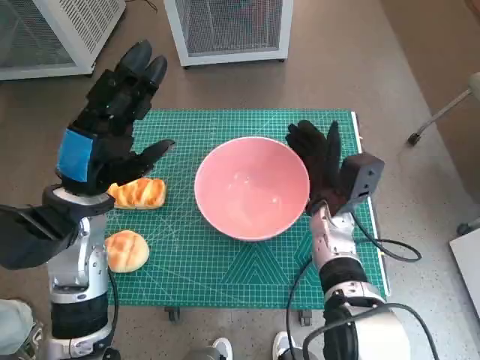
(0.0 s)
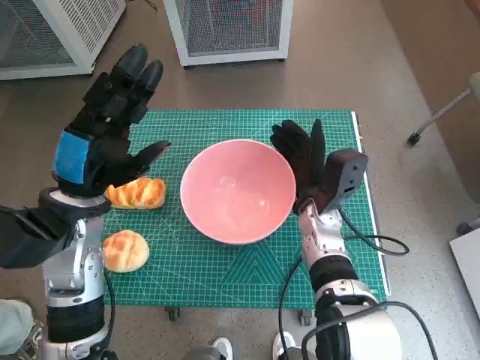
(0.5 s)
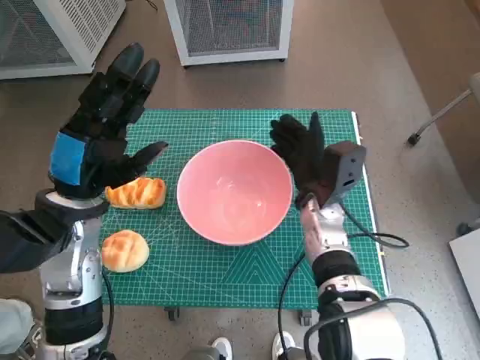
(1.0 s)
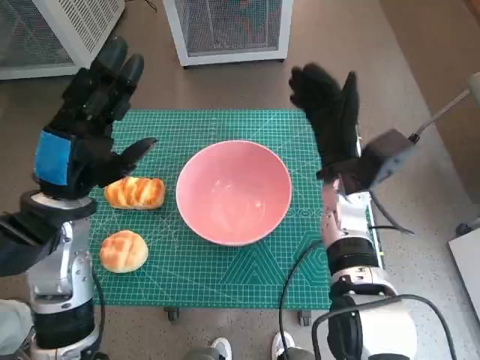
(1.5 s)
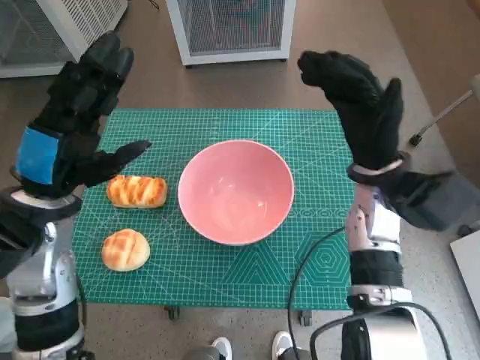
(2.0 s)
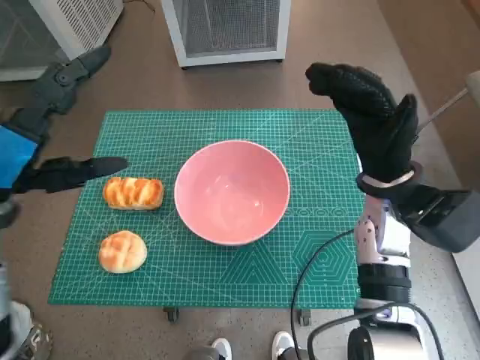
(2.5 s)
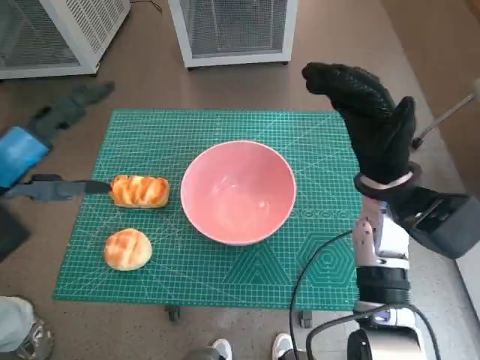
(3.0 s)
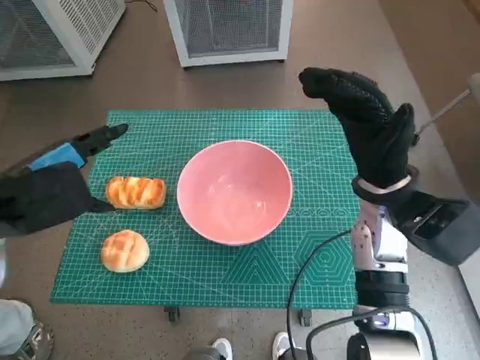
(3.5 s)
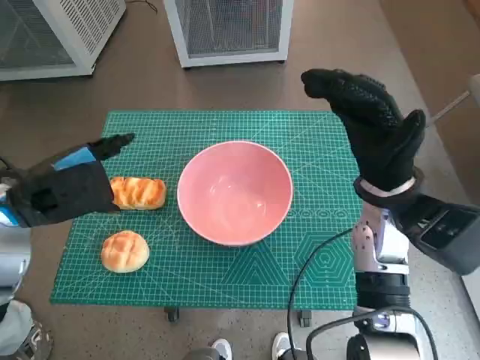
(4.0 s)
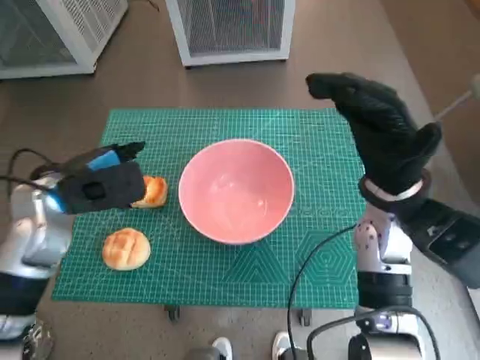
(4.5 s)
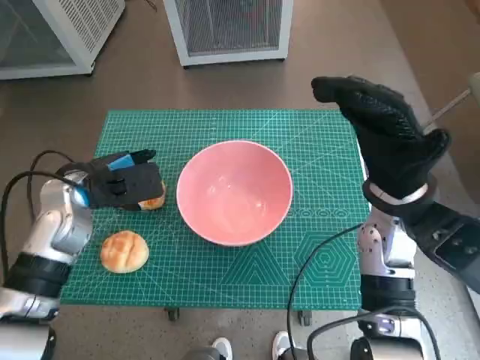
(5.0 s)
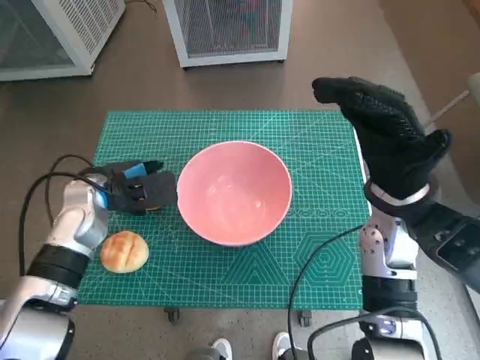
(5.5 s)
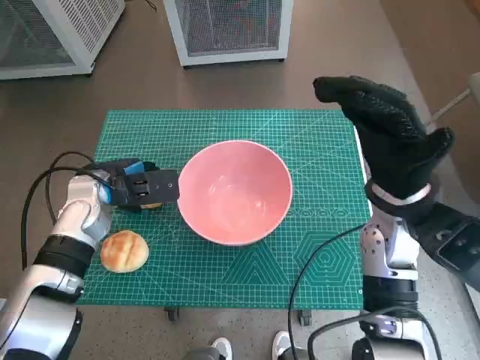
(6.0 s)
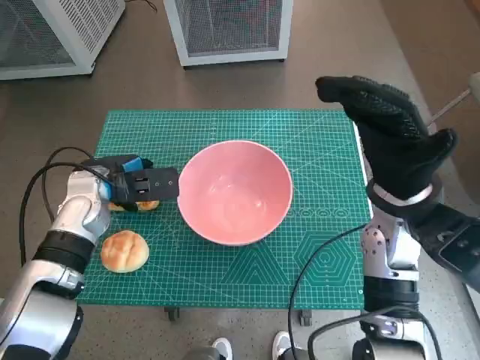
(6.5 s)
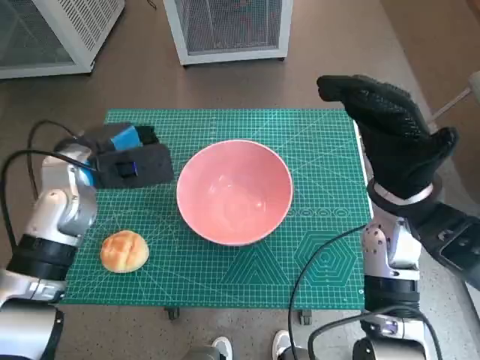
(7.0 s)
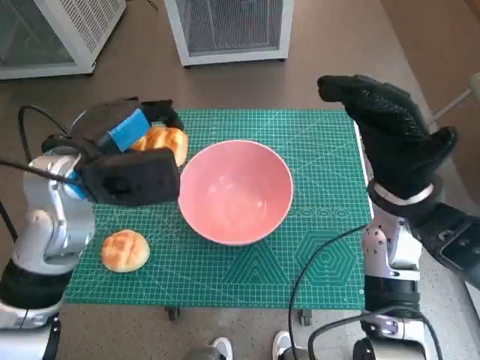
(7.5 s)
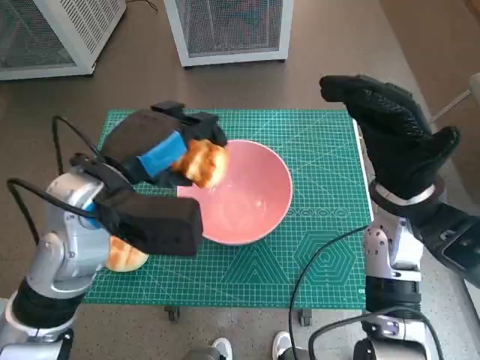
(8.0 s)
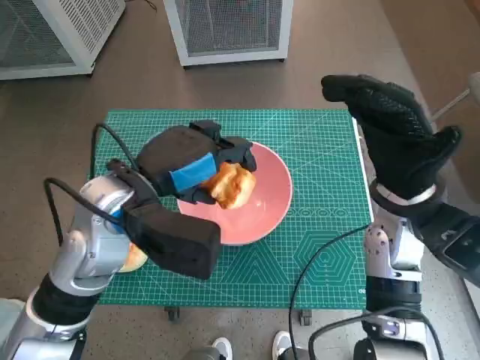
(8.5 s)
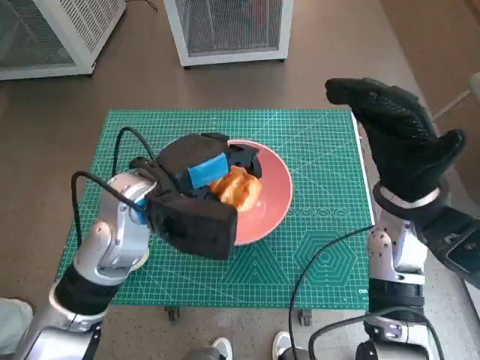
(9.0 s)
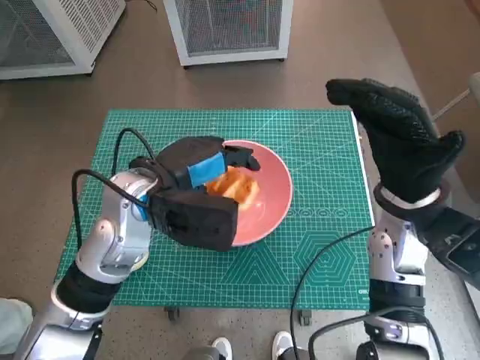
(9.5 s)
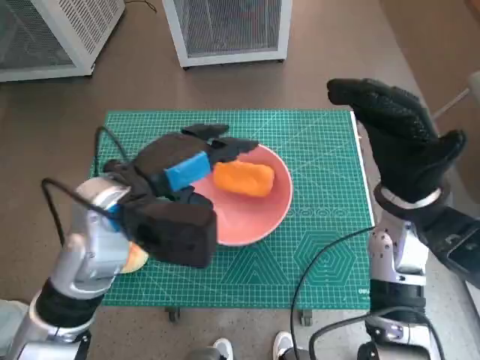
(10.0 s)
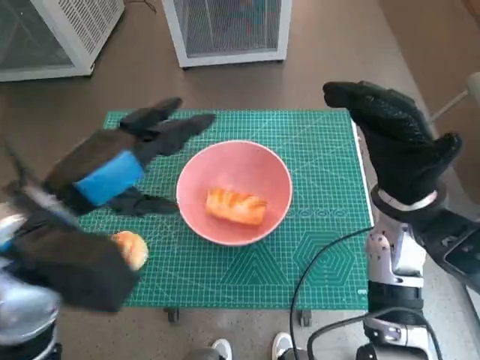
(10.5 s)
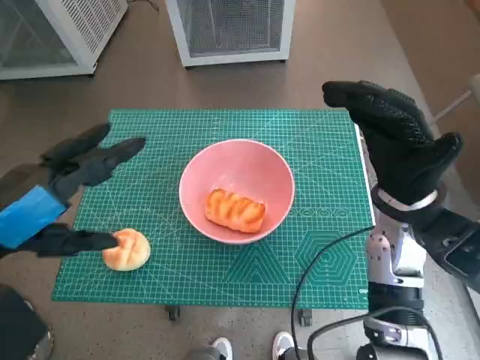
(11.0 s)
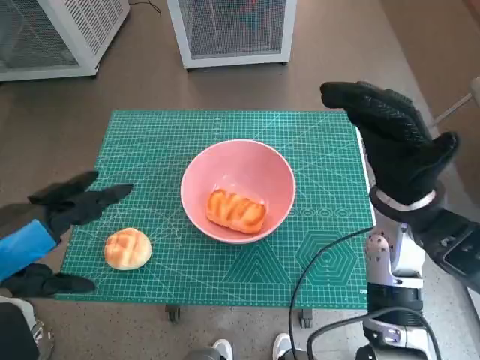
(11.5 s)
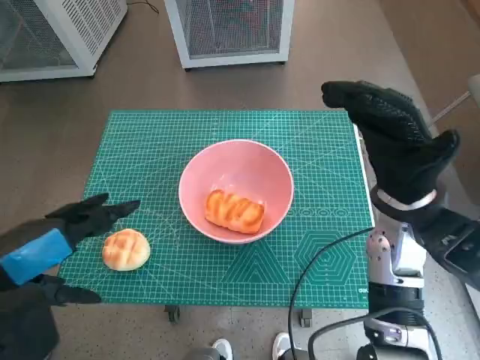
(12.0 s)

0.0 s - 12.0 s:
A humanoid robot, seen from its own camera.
Task of the whole recording: Push the bowl into the center of the table and put the bread into the bowl.
Step, 1.5 s - 6.0 s: Grasp the long bread with left hand.
Step, 6.5 s - 9.5 s: Place the long bread in pink bowl with left hand.
0.0 s - 2.0 s: The right hand is displaced upward by roughly 10 cm.
4.0 s - 6.0 s: The left hand heads downward and forward, covering about 10 cm.
6.0 s - 8.0 s: The left hand moves upward, backward and to the right, roughly 15 cm.
10.0 s - 12.0 s: The left hand travels backward and to the left by some 15 cm.

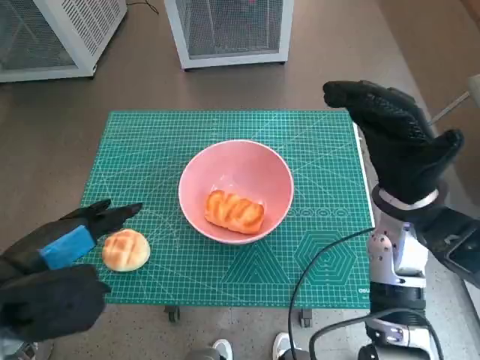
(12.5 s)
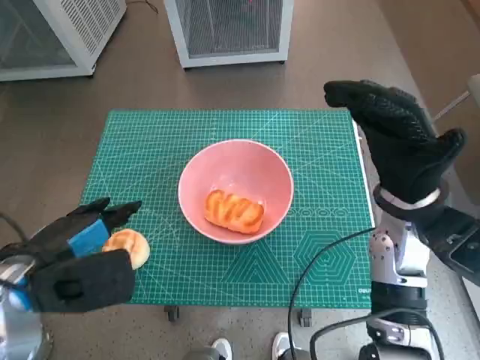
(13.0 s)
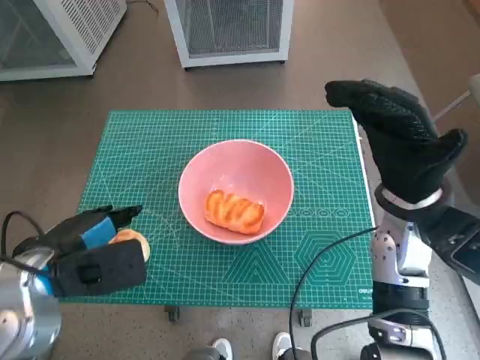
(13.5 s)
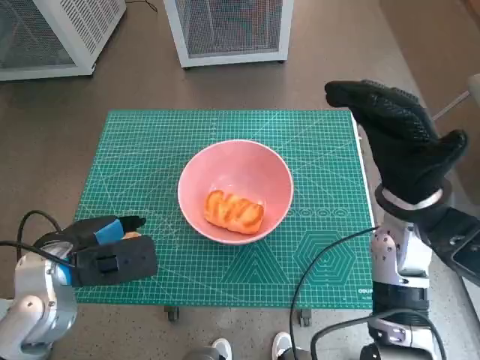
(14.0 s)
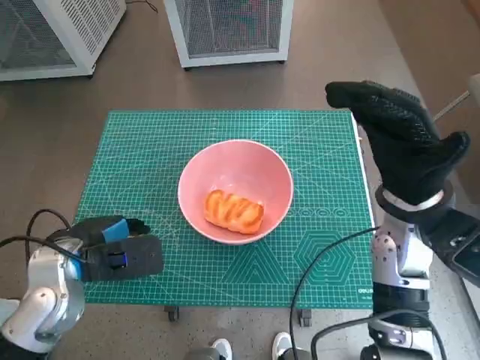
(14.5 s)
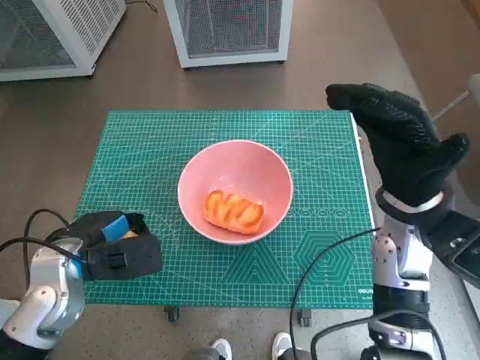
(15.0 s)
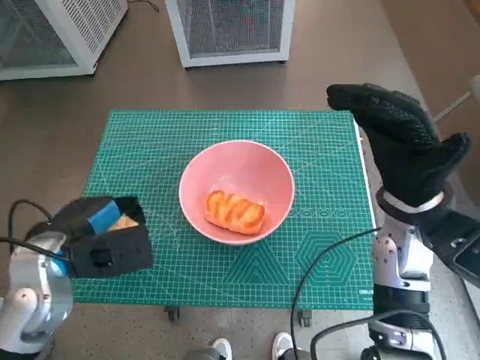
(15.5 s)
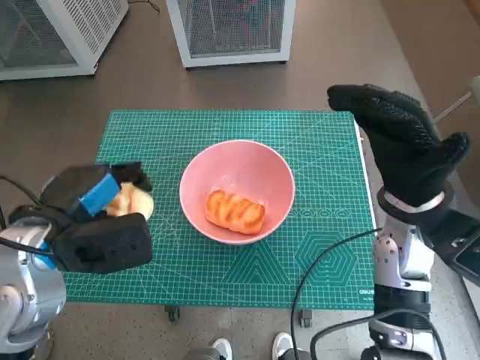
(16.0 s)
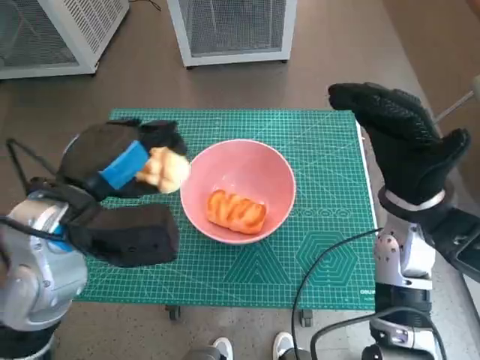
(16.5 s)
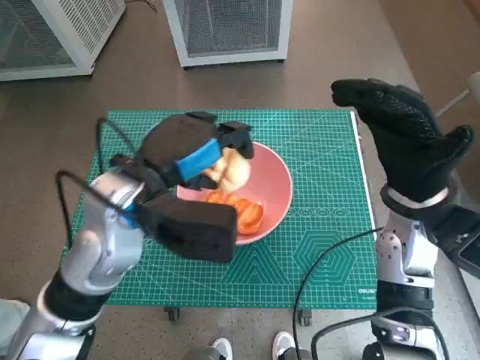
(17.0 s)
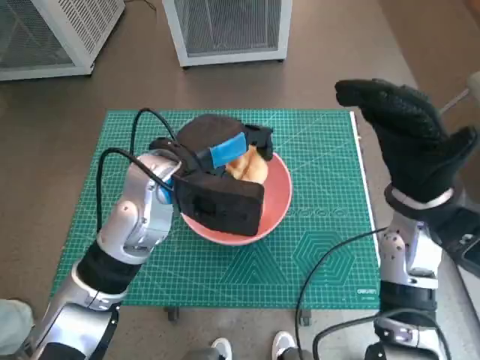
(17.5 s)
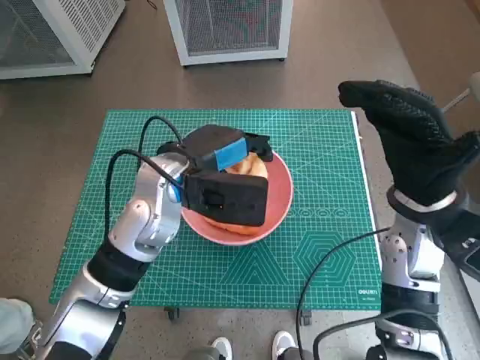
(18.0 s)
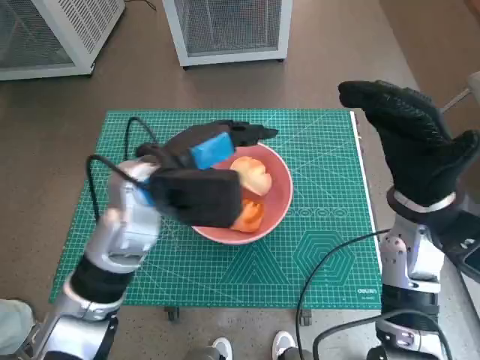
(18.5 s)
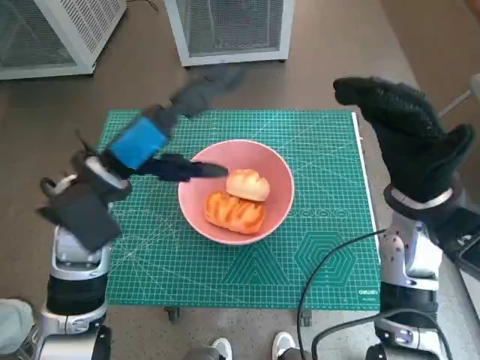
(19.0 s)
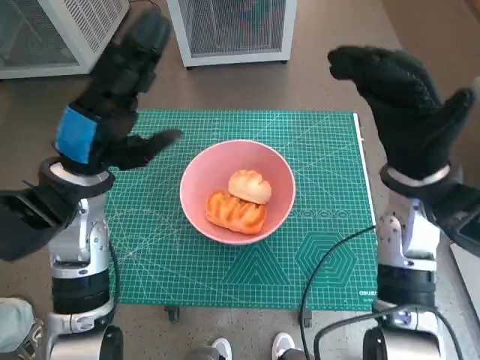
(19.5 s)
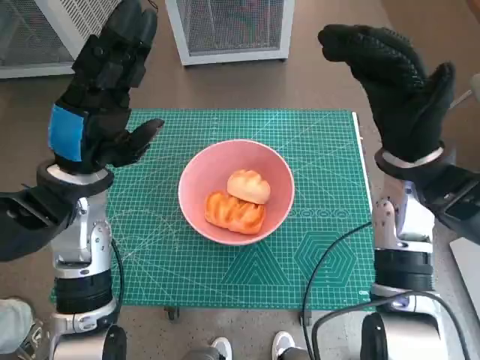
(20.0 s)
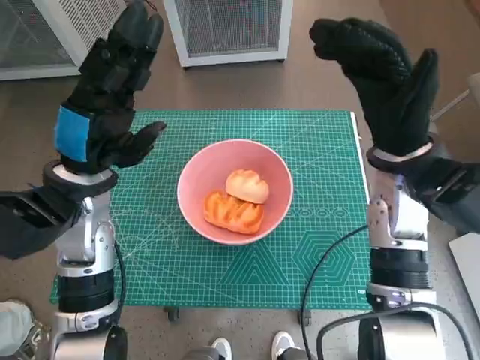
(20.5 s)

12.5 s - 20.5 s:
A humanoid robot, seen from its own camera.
Task of the whole recording: Push the bowl into the center of the table and put the bread into the bowl.
Step, 12.5 s - 14.5 s: Grasp the round bread with left hand.
Step, 15.0 s - 18.0 s: Place the round bread in pink bowl with left hand.
12.5 s - 14.5 s: The left hand is displaced downward and forward by roughly 10 cm.
14.5 s - 16.5 s: The left hand goes roughly 10 cm upward.
16.5 s - 18.5 s: The left hand shifts roughly 10 cm to the right and forward.
18.5 s - 20.5 s: The right hand moves roughly 5 cm, while the left hand shifts about 10 cm to the left.

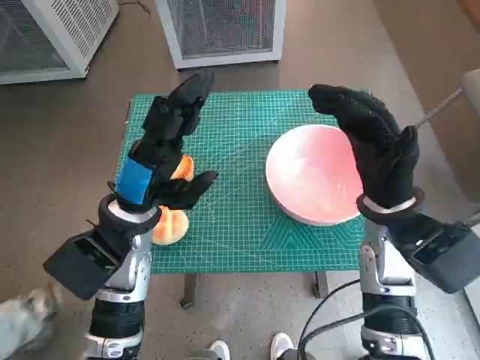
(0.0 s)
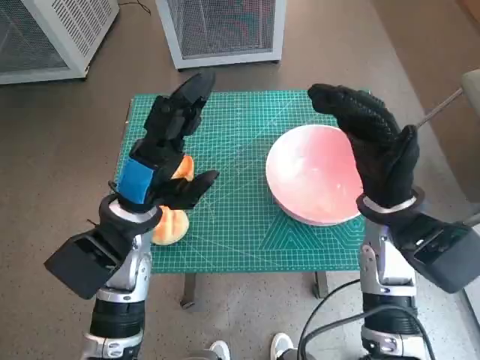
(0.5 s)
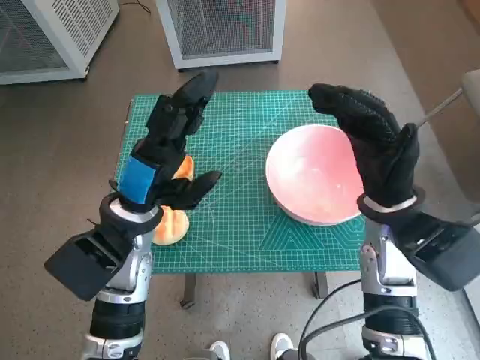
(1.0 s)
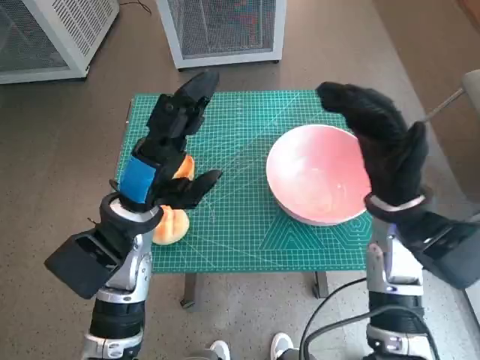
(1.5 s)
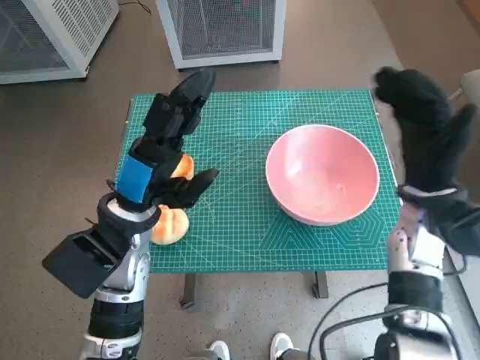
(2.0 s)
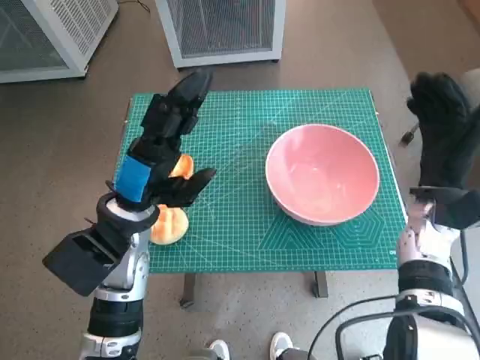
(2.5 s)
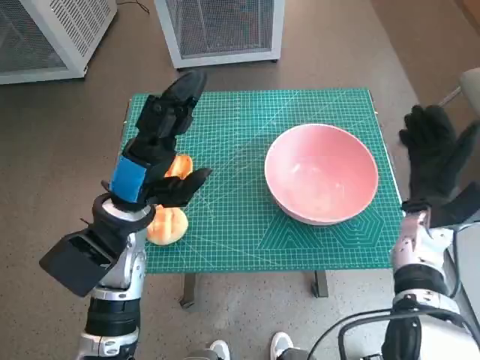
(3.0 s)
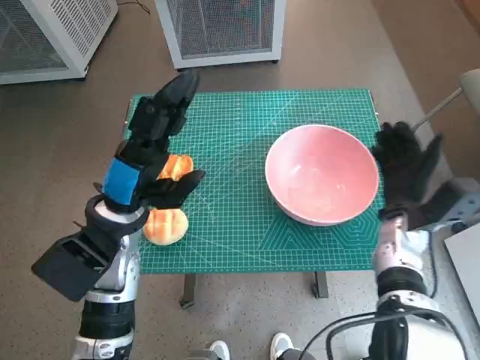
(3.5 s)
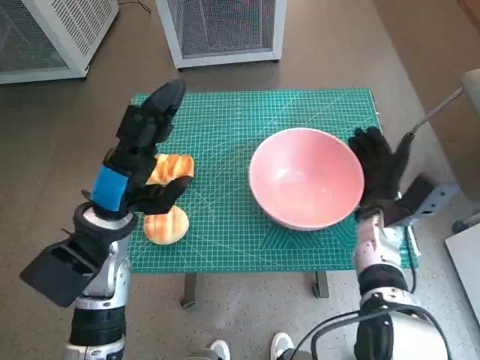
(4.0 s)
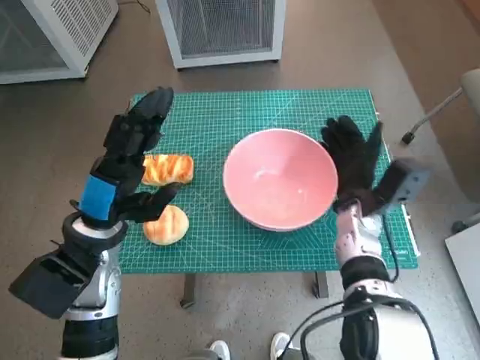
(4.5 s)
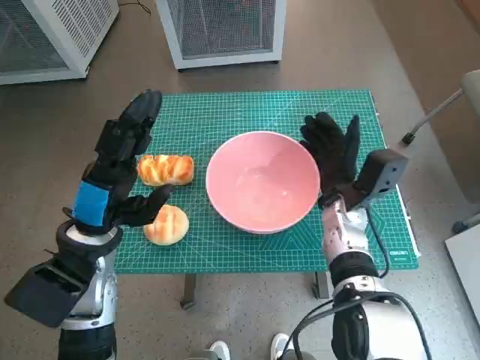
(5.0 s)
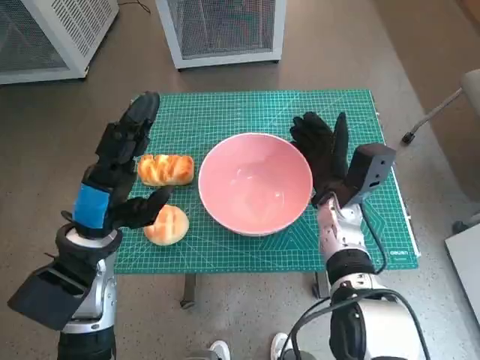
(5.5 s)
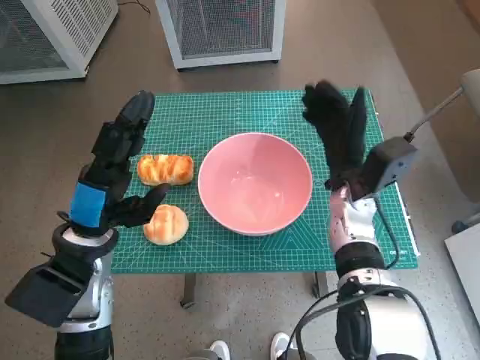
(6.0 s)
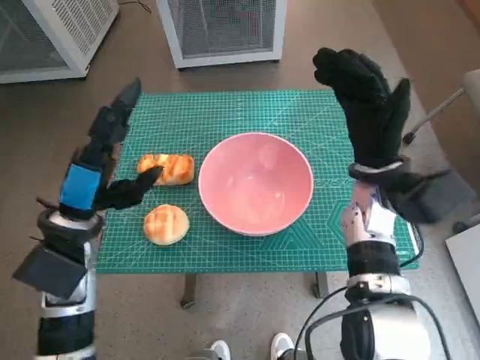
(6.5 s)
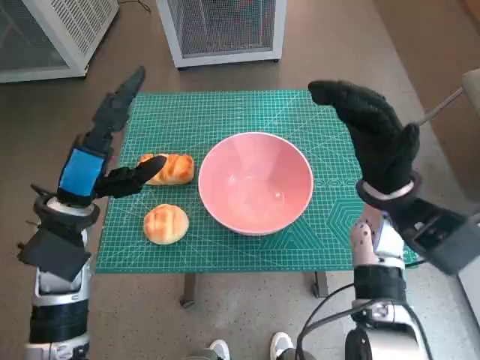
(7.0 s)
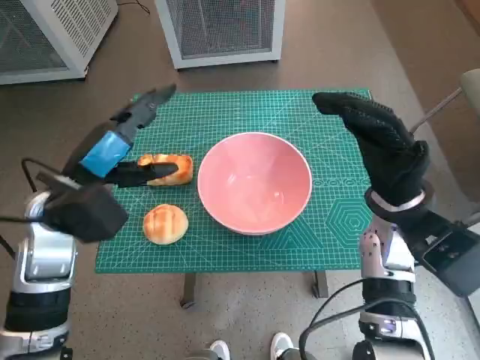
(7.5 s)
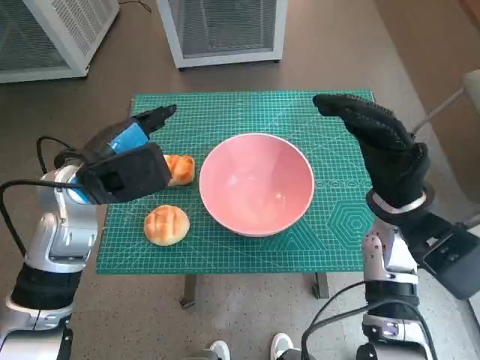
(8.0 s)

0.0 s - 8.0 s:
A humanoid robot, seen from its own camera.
Task of the whole recording: Push the bowl into the center of the table and put the bread into the bowl.
Step, 0.0 s - 5.5 s: Move the pink bowl to the center of table with right hand.
2.0 s - 4.0 s: The right hand travels downward by some 10 cm.
4.0 s - 6.0 s: The right hand shifts some 5 cm to the left.
6.0 s - 8.0 s: The left hand moves forward and upward, about 10 cm. Meanwhile the right hand moves upward, roughly 5 cm.
